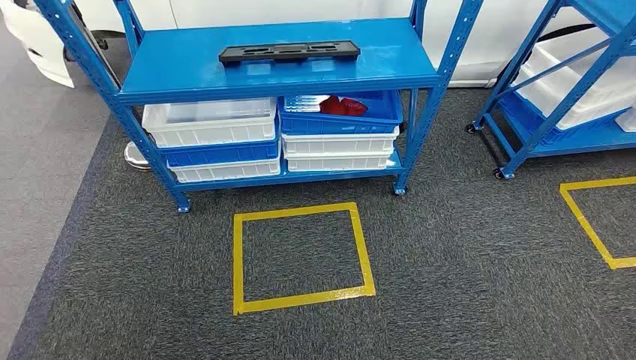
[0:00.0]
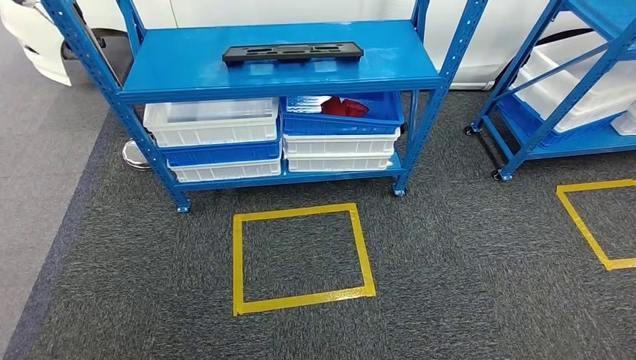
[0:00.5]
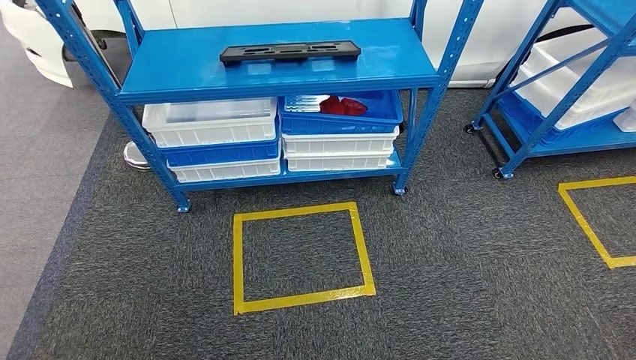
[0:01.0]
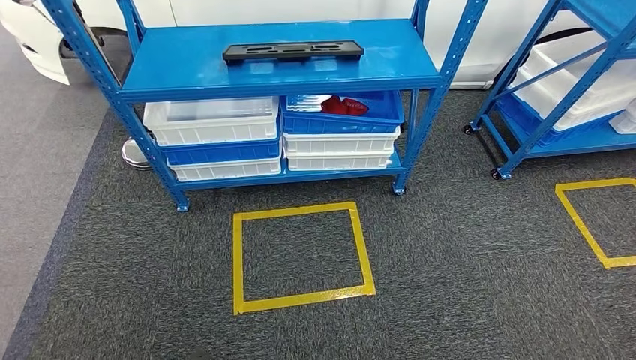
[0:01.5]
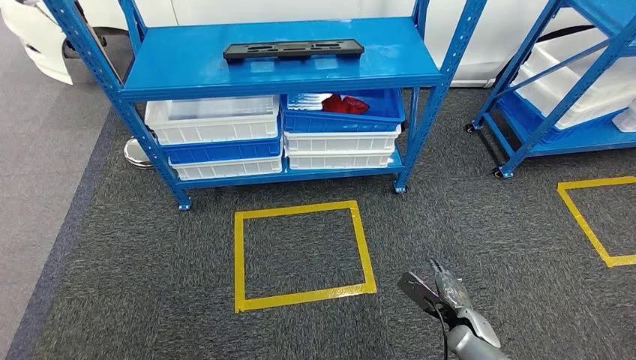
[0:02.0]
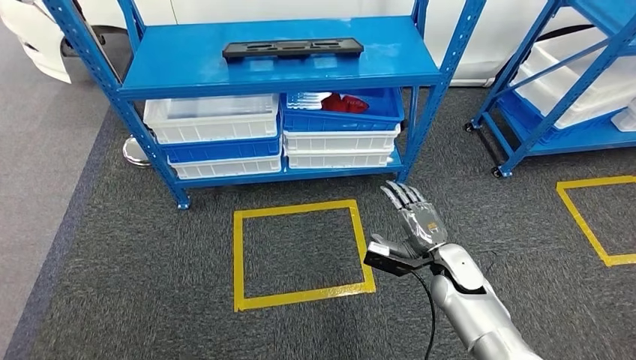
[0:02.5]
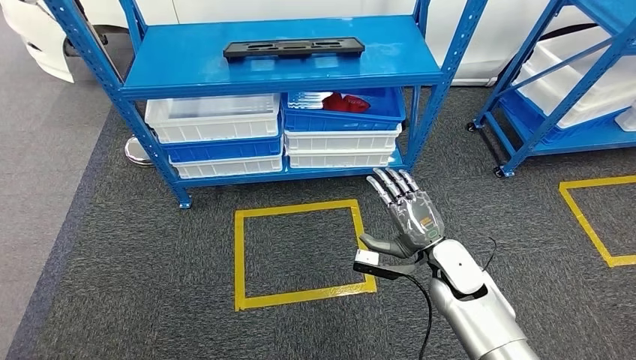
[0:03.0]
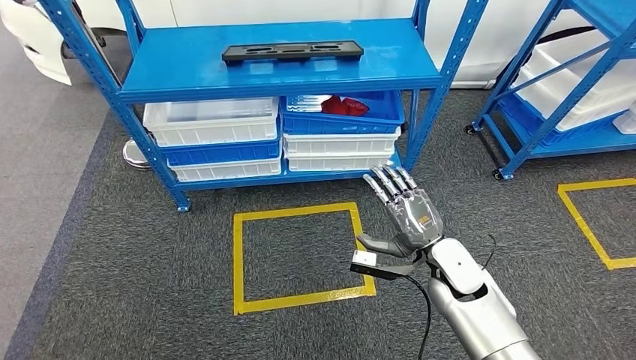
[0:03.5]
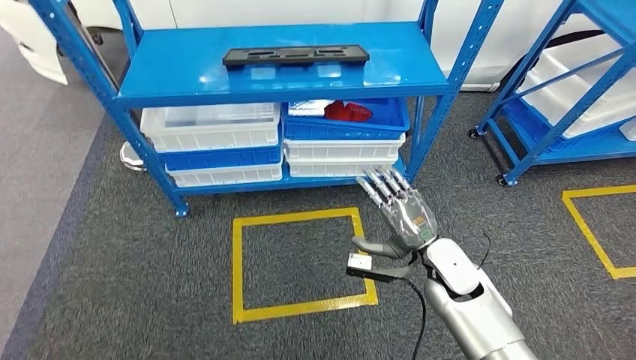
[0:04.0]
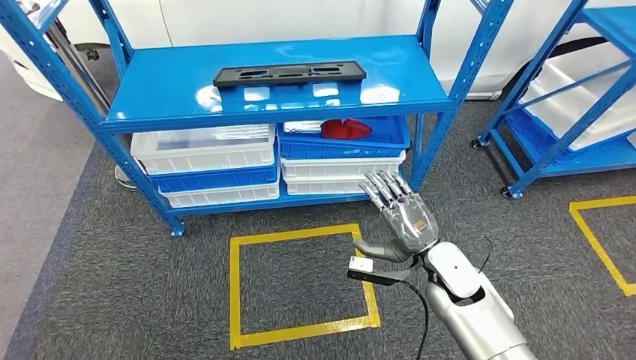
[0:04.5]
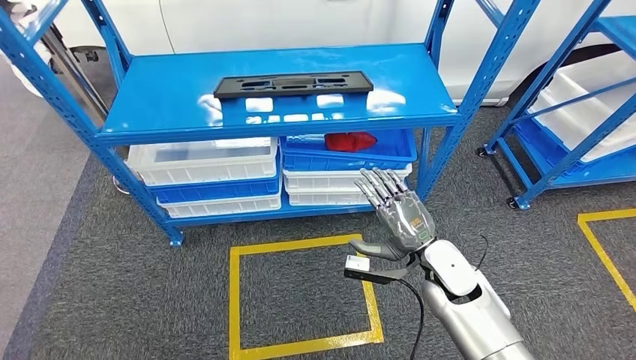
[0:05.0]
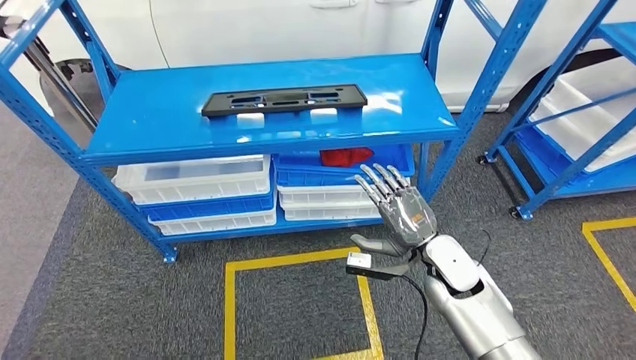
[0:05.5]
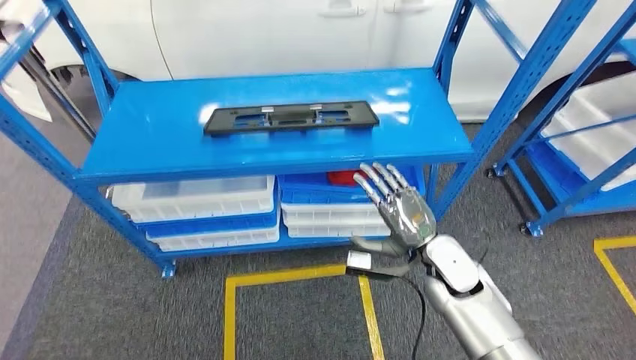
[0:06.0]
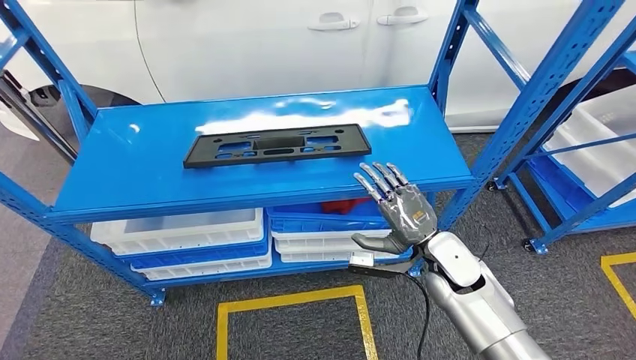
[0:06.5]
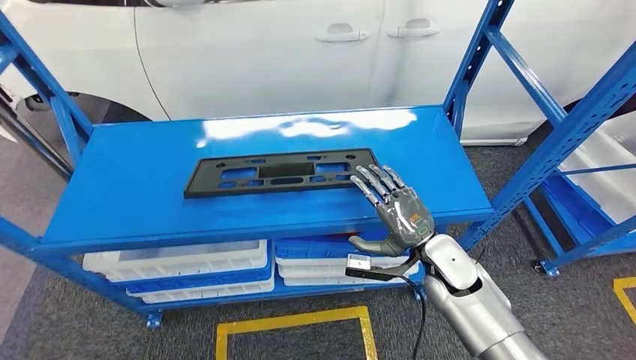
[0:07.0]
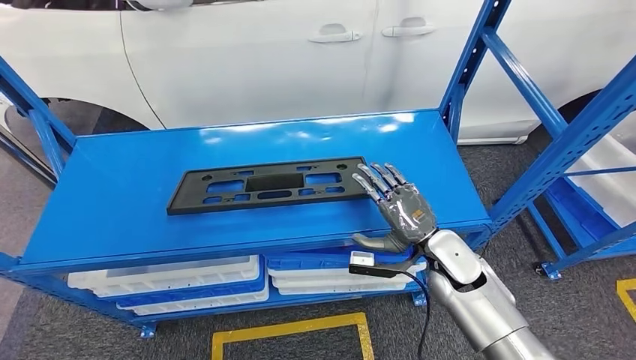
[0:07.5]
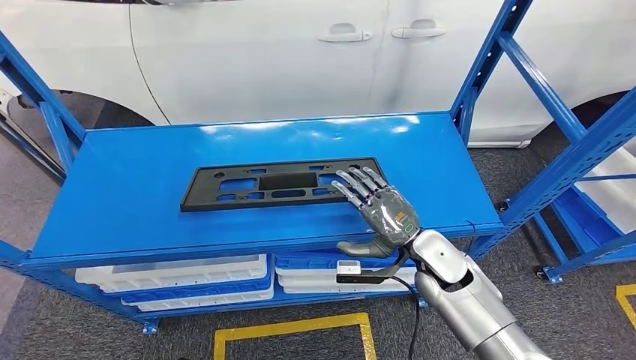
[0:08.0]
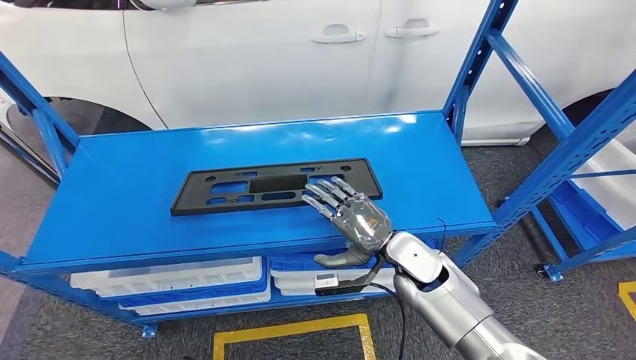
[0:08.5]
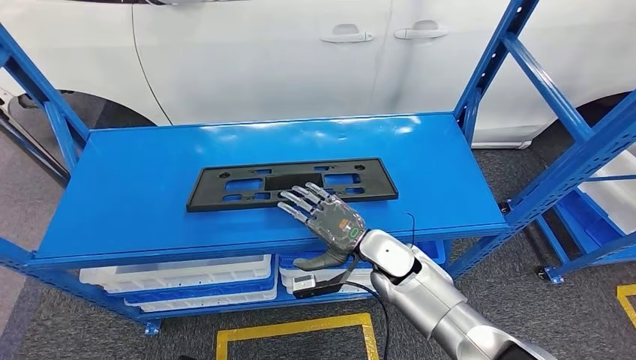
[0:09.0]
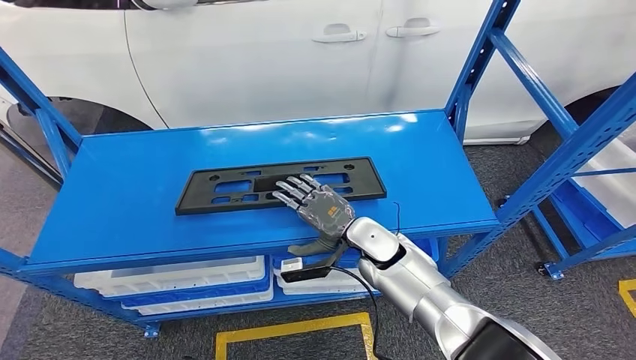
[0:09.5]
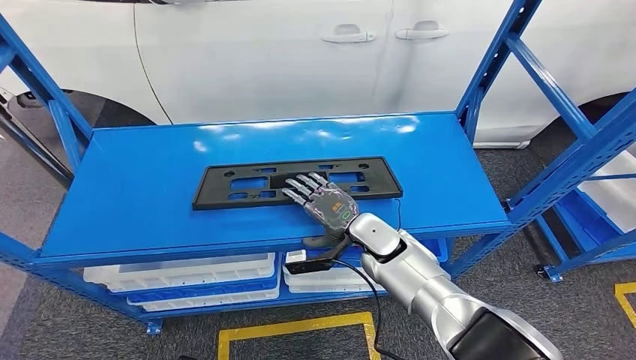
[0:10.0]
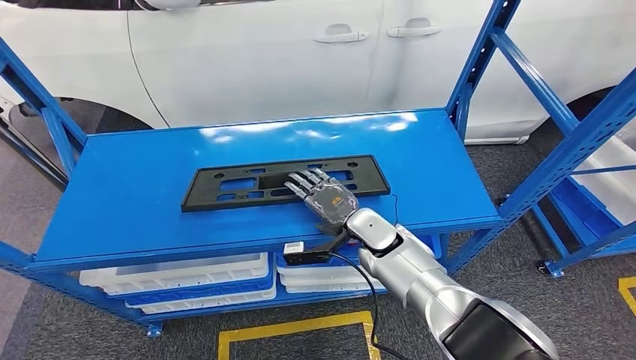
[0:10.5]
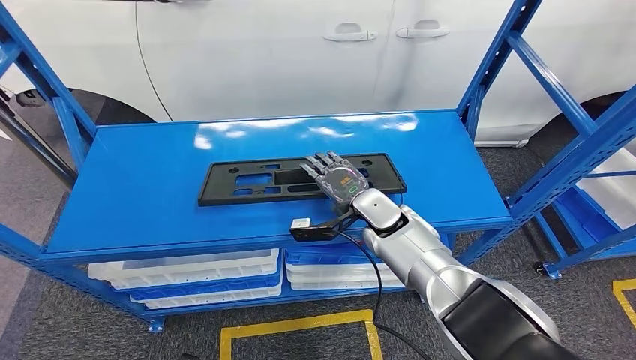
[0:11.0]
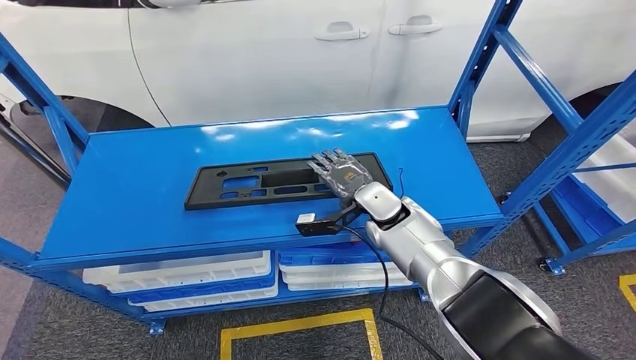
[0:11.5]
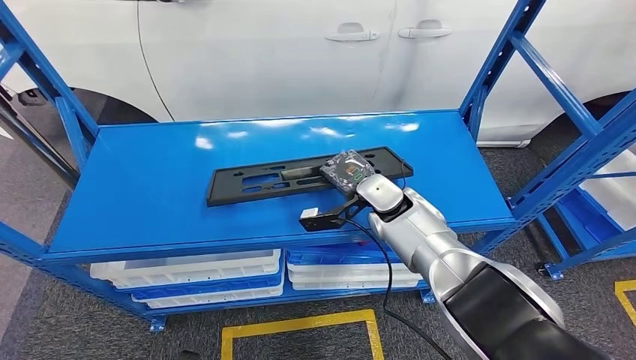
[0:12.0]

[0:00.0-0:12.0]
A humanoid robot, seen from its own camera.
0:08.0 to 0:10.0: The right hand shifts roughly 10 cm to the left and forward.

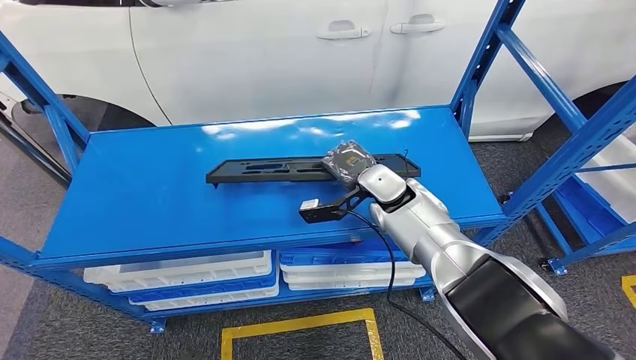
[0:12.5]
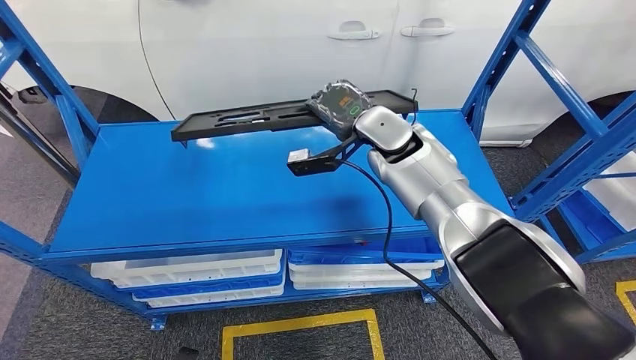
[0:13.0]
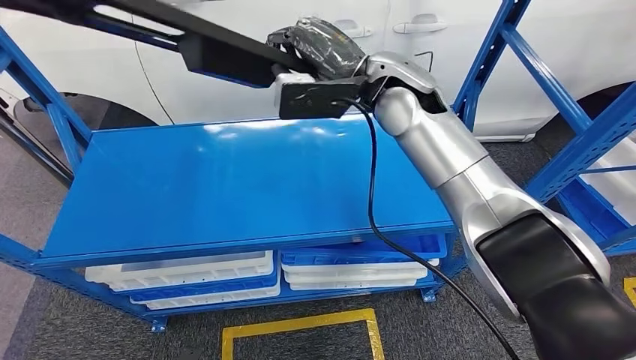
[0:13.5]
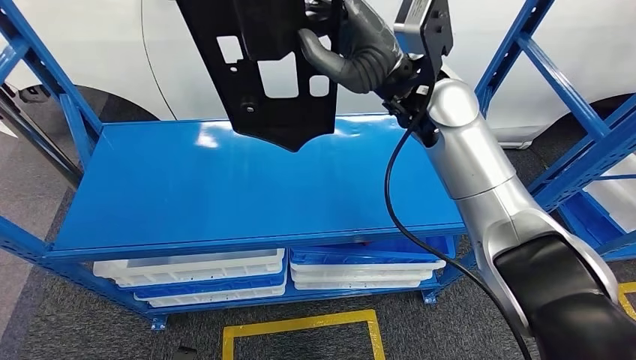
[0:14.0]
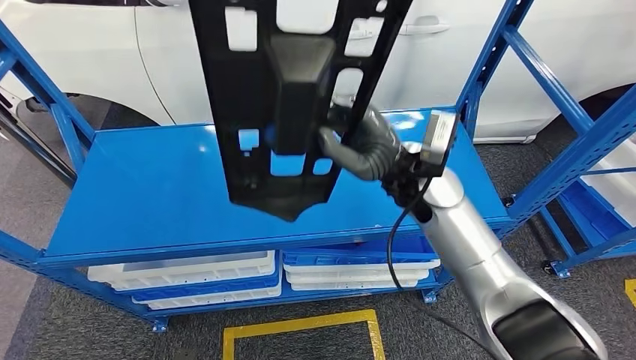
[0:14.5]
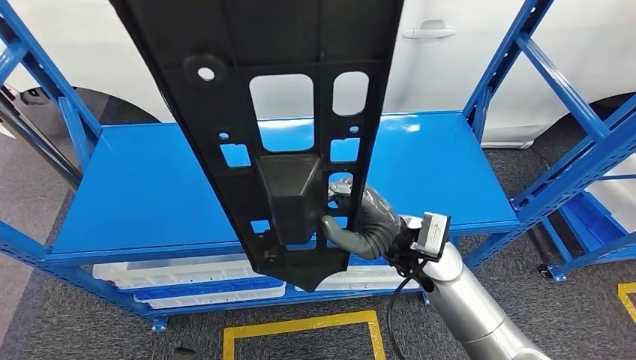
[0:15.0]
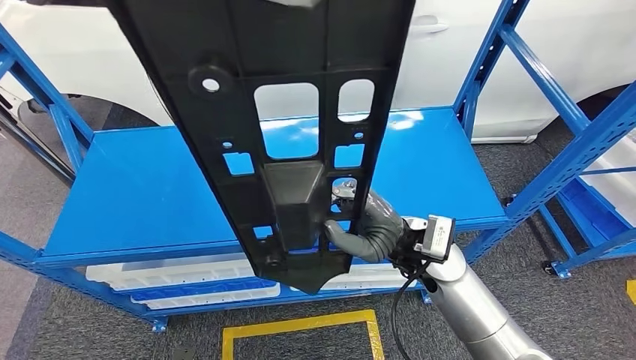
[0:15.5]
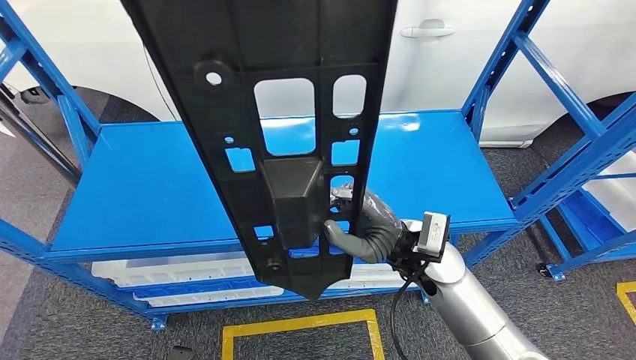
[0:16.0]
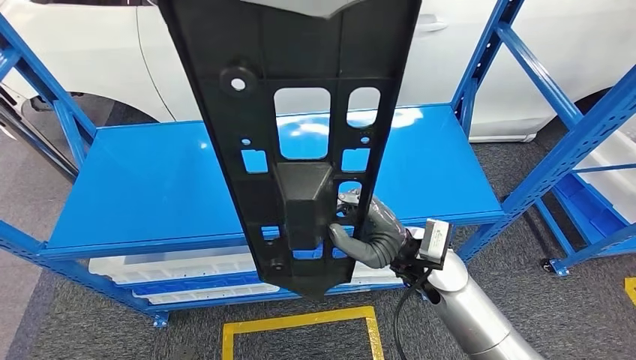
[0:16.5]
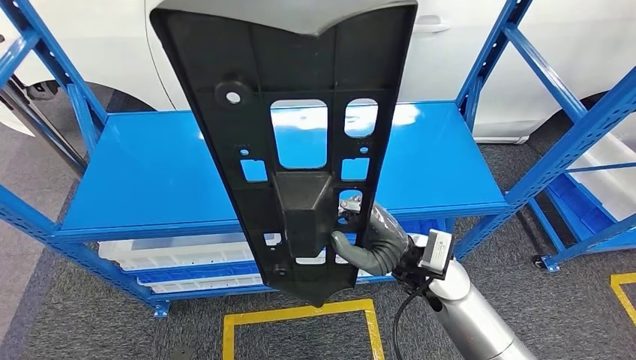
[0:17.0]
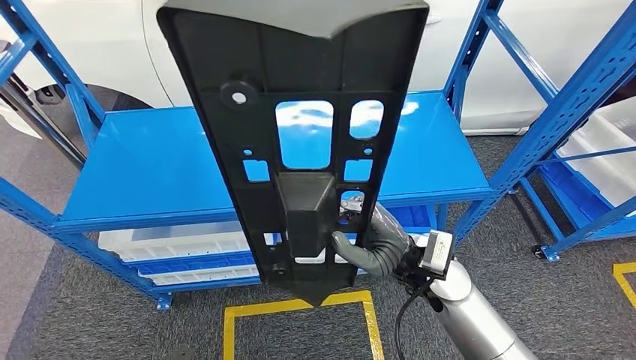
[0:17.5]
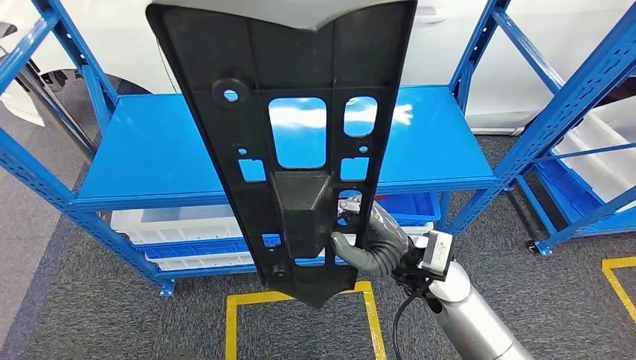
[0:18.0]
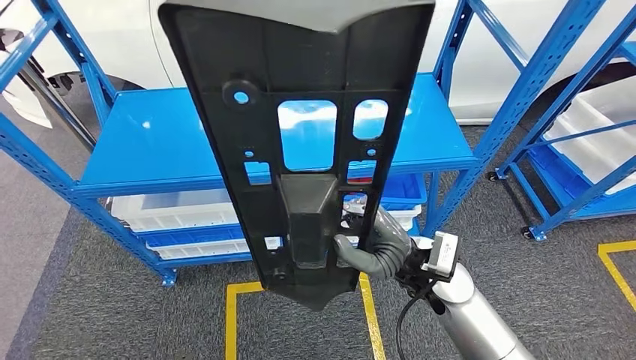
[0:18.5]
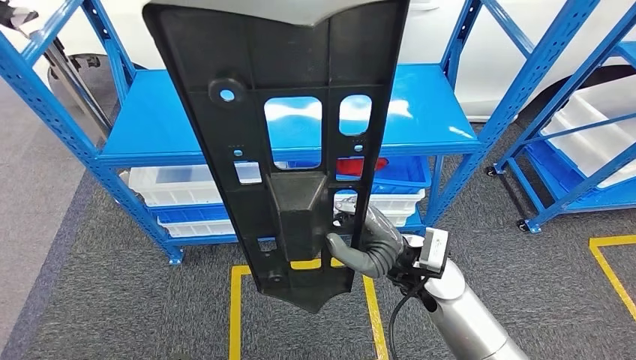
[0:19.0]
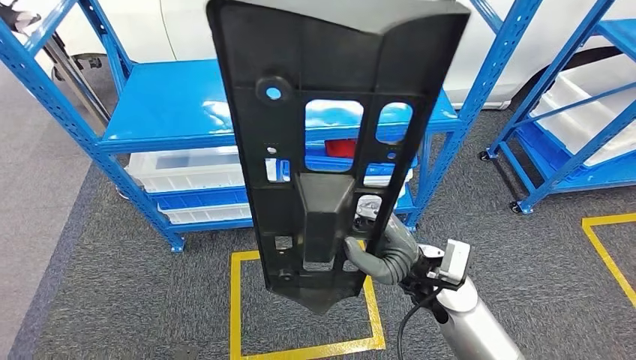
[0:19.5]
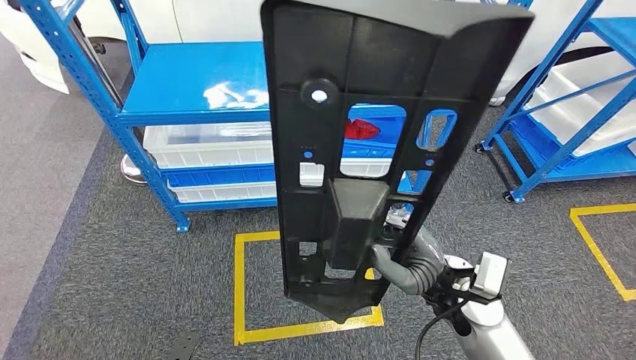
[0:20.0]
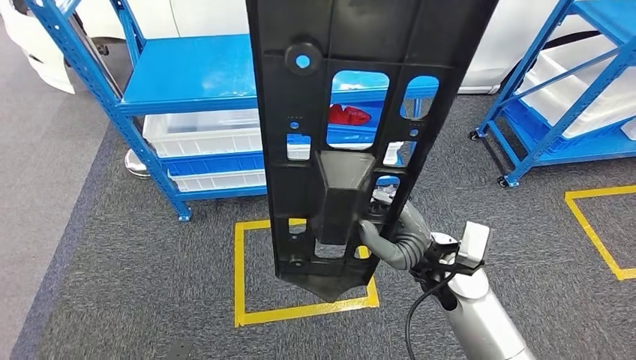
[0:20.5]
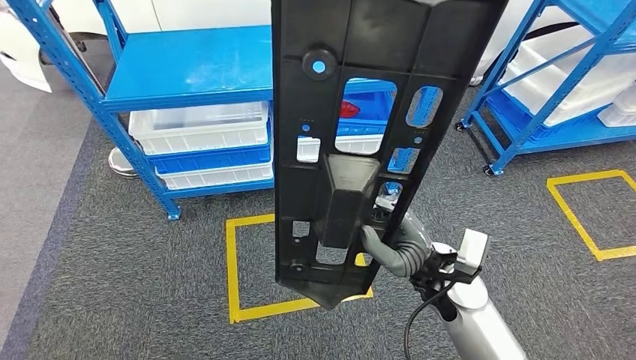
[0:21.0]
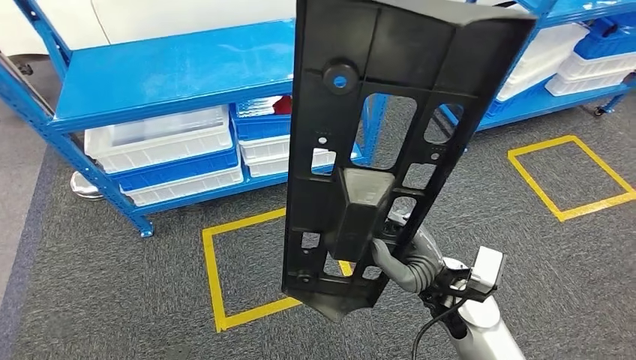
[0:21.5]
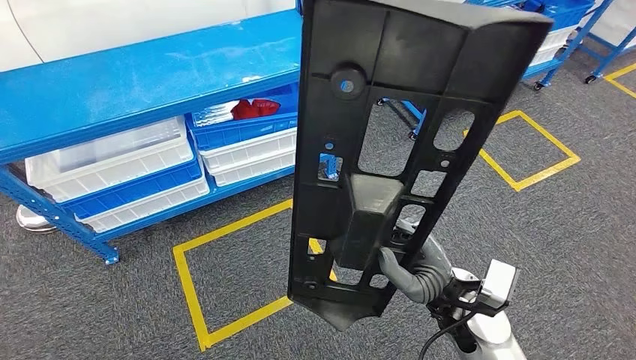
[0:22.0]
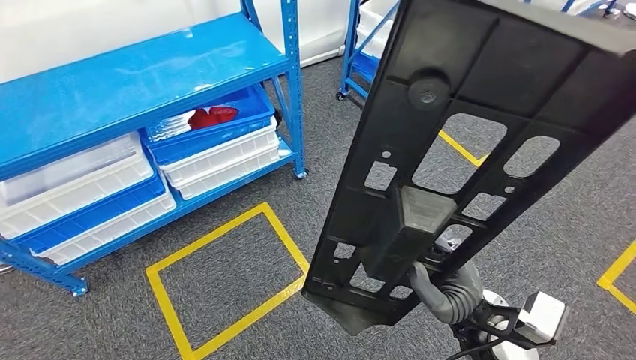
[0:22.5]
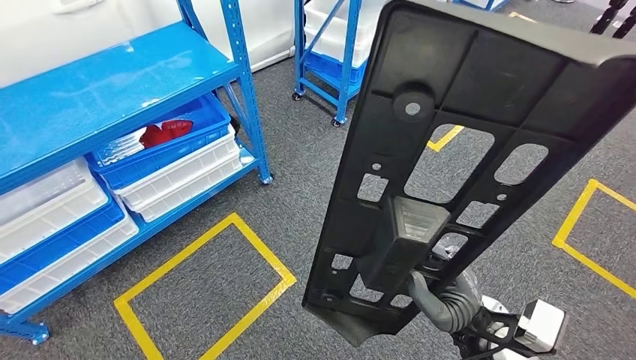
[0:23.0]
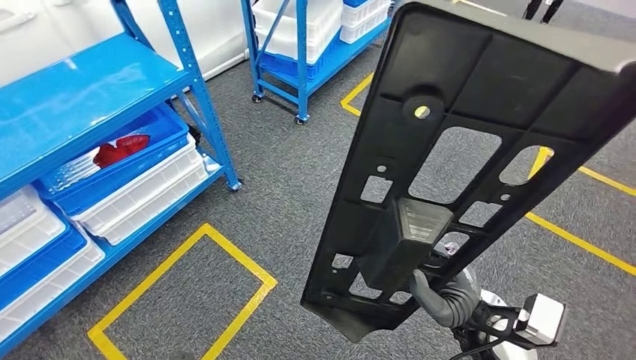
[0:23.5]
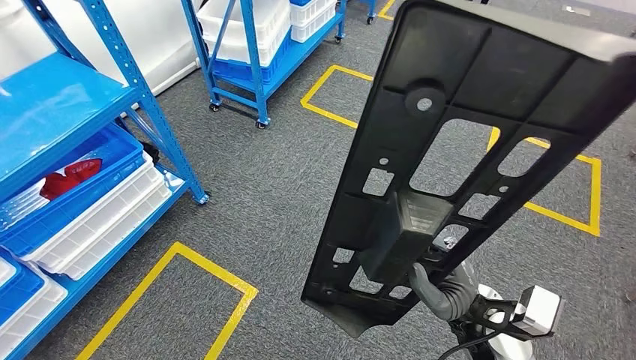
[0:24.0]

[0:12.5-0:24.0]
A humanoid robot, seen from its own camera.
Step, 0:12.5 to 0:14.5: Pick up the large material from the shelf.
